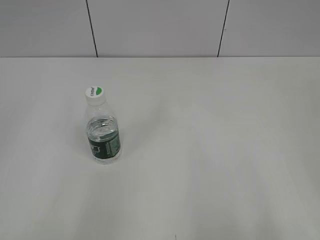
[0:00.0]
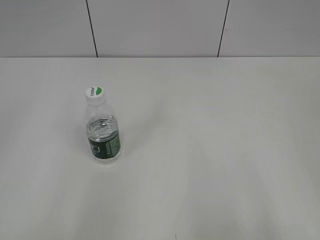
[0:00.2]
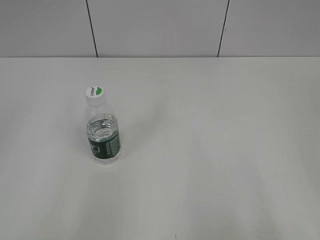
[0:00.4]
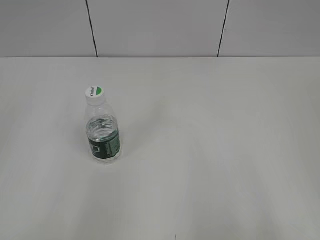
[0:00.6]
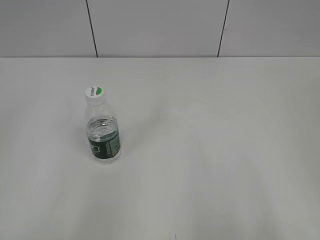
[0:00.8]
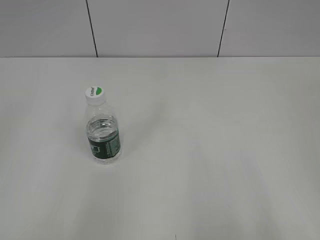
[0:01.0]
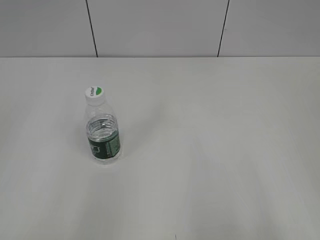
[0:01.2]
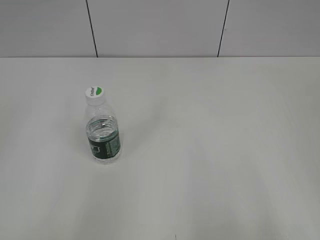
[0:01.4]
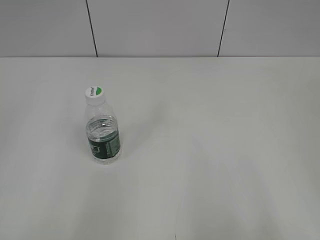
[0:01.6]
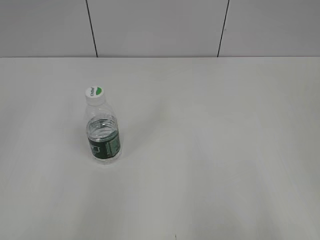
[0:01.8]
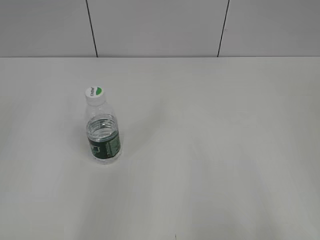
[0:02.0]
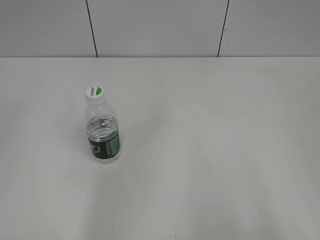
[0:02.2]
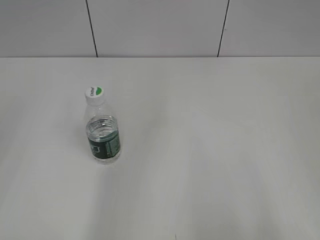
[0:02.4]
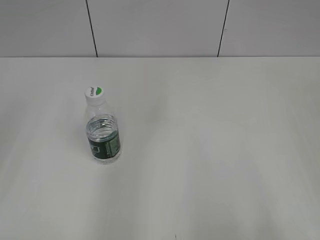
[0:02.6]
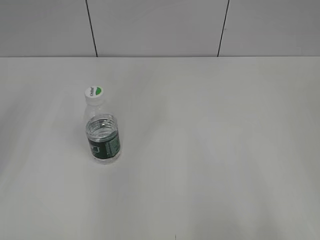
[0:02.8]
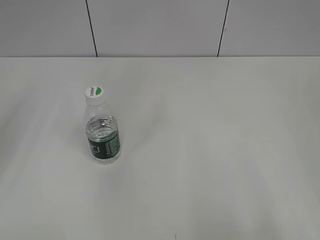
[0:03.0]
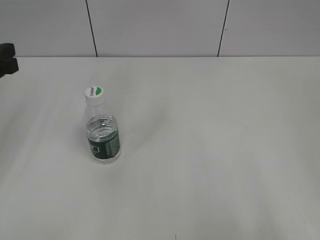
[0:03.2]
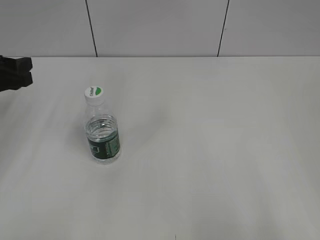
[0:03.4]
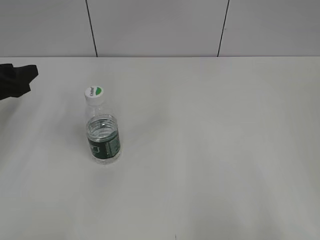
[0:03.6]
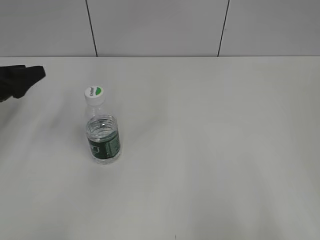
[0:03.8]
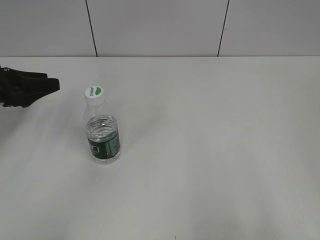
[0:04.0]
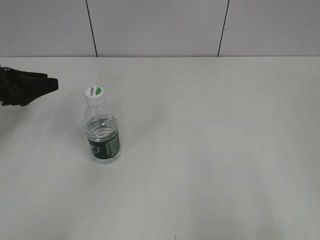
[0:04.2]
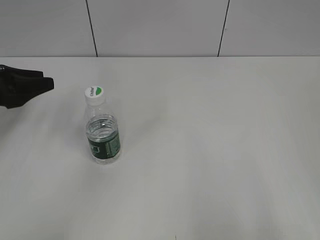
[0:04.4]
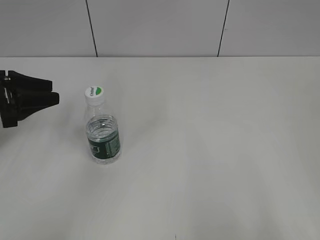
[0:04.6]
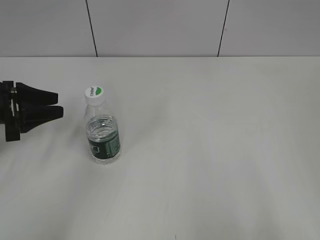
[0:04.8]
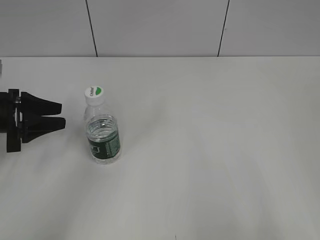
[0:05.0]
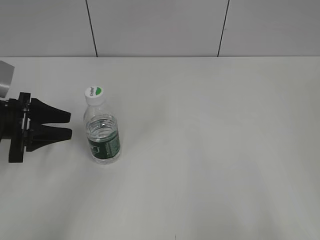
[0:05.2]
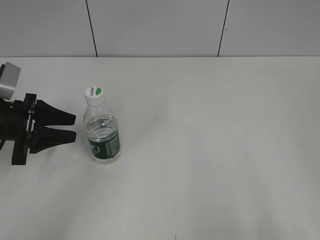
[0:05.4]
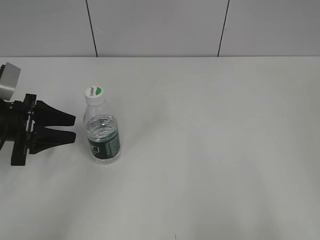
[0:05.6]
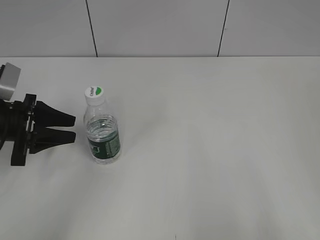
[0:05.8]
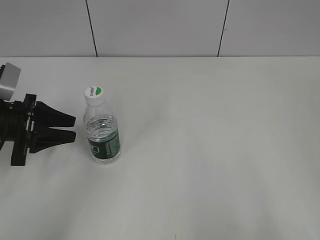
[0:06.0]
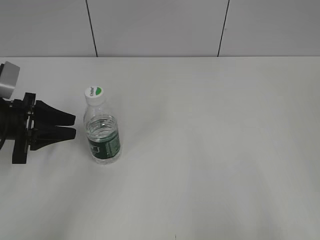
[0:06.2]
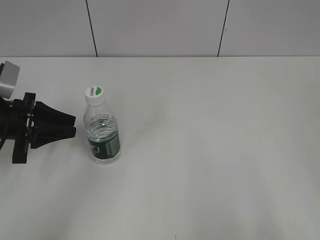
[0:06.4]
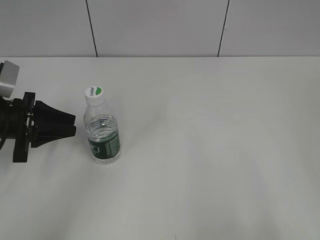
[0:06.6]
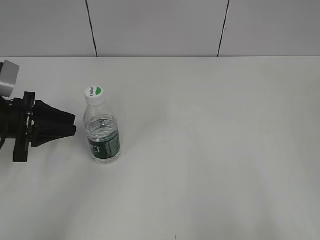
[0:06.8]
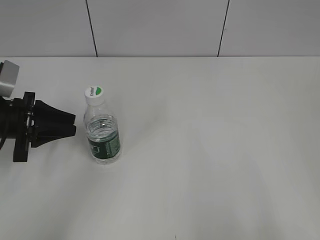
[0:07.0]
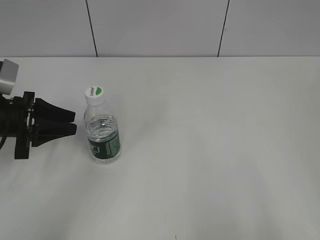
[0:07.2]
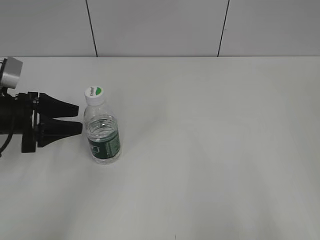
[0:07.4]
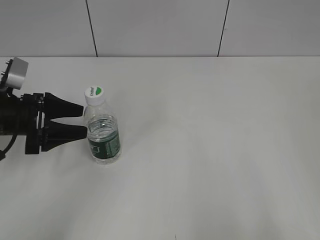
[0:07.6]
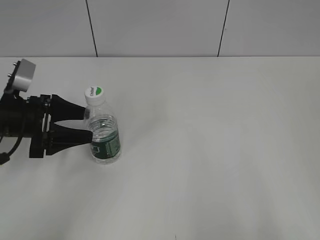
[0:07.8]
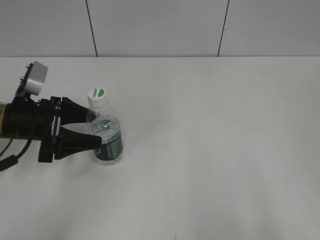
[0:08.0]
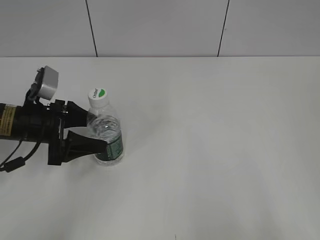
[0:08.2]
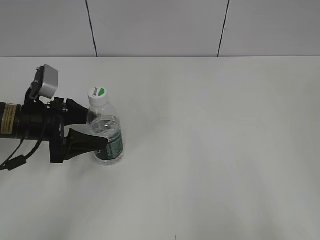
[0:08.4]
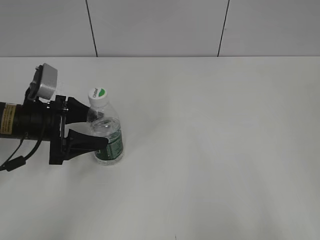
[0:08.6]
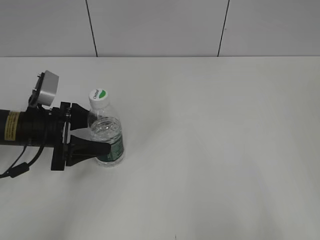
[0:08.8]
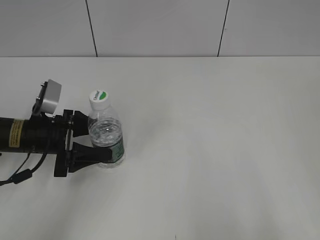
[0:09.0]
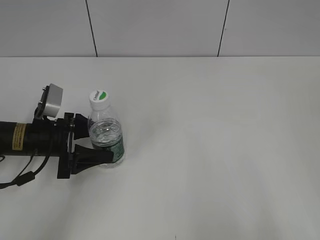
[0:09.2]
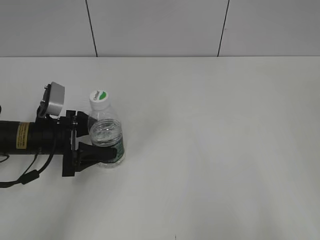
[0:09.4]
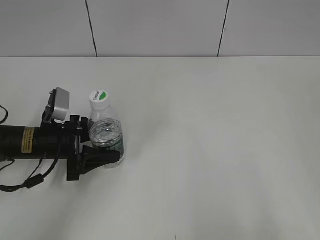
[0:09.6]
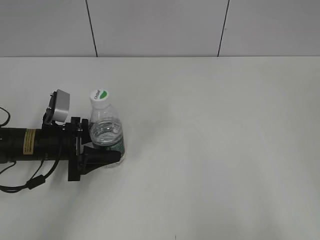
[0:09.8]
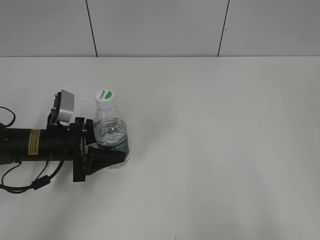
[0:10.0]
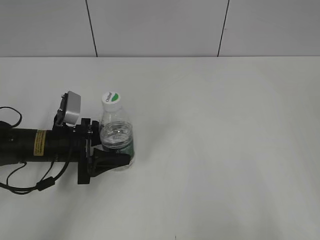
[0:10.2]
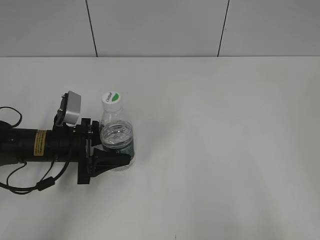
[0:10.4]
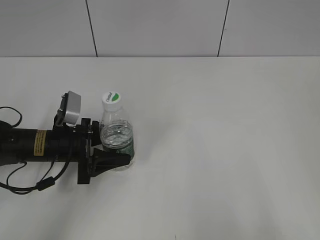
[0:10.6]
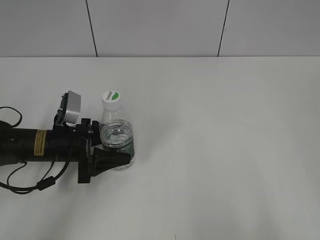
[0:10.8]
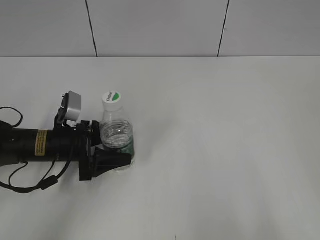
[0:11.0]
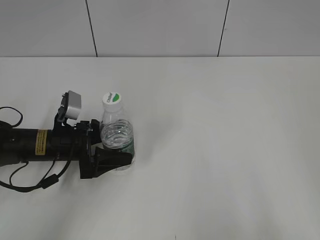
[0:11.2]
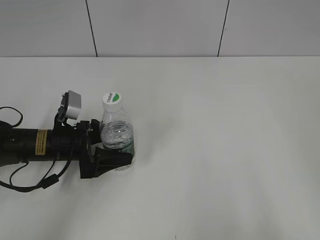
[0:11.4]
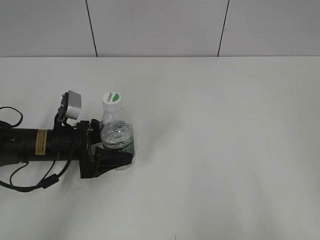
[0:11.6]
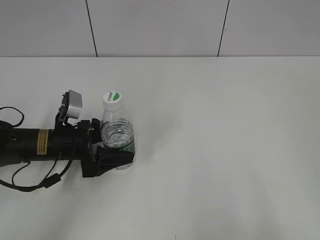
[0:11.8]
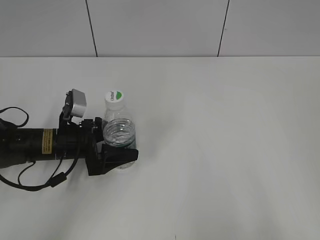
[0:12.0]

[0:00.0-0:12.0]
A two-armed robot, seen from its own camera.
Step, 0:00.0 to 0:11.0: Grasp the bottle and move it to the center of the table with the left gripper.
0:03.0 to 0:04.4: The left gripper is displaced downward and forward by approximately 15 cm.
0:04.4 to 0:06.0: The left gripper ends up some 5 cm from where it was.
0:06.0 to 0:07.6: The left gripper opens its fingers.
0:07.6 to 0:09.0: The left gripper changes place by approximately 5 cm.
0:09.0 to 0:10.4: The grippers move only a little.
0:10.4 to 0:12.0: The left gripper opens.

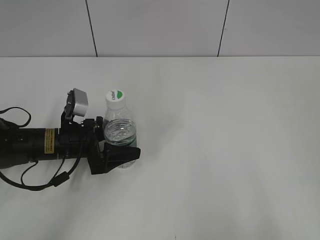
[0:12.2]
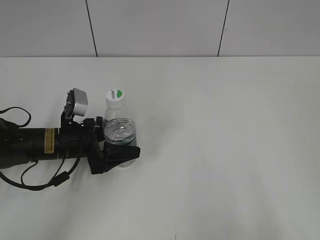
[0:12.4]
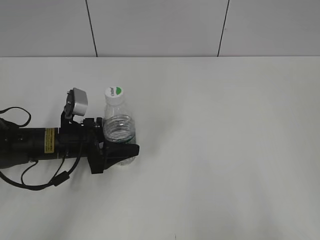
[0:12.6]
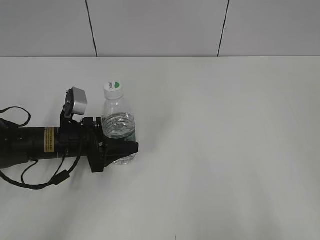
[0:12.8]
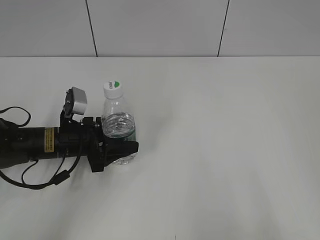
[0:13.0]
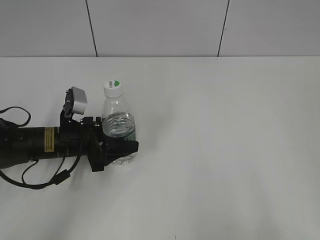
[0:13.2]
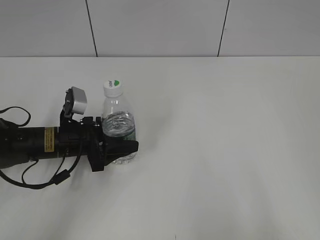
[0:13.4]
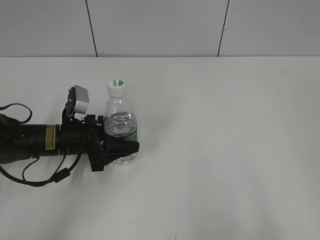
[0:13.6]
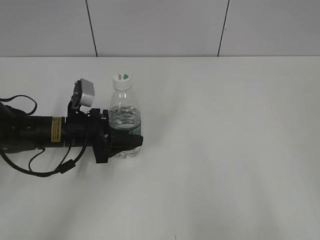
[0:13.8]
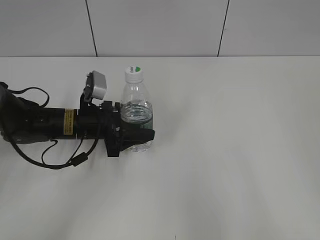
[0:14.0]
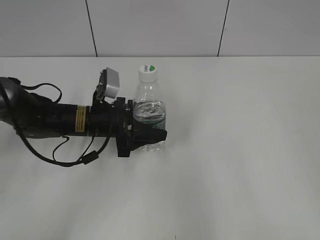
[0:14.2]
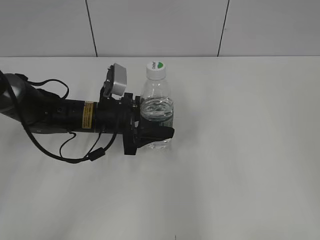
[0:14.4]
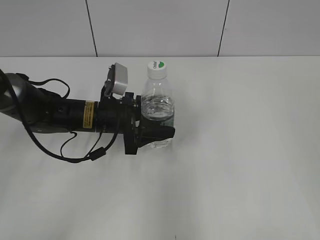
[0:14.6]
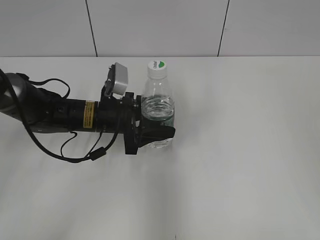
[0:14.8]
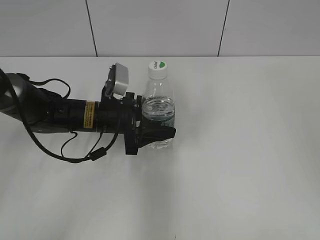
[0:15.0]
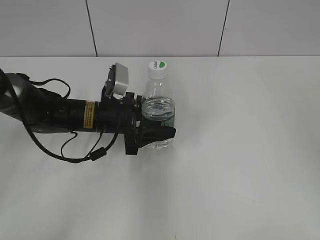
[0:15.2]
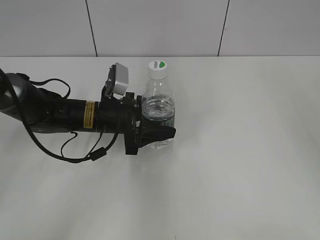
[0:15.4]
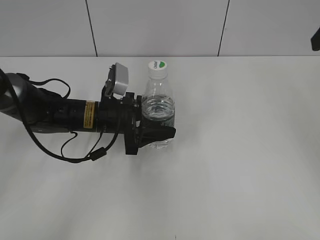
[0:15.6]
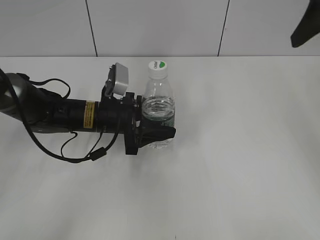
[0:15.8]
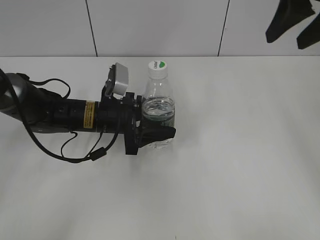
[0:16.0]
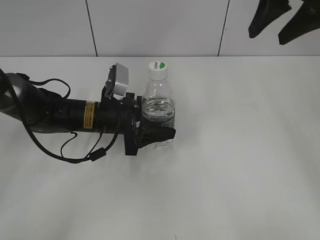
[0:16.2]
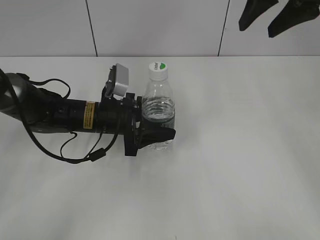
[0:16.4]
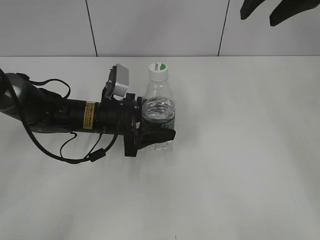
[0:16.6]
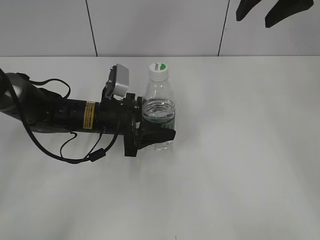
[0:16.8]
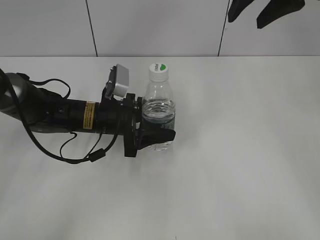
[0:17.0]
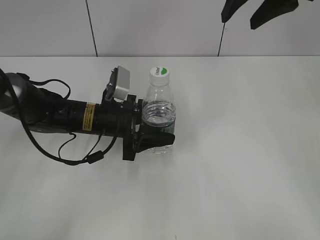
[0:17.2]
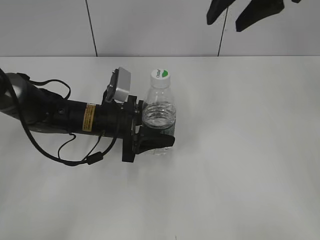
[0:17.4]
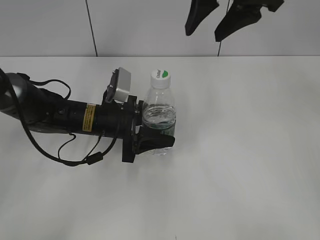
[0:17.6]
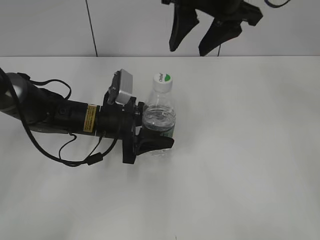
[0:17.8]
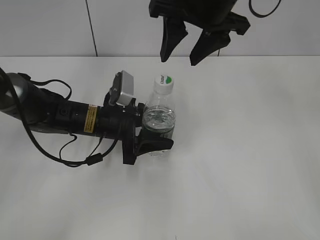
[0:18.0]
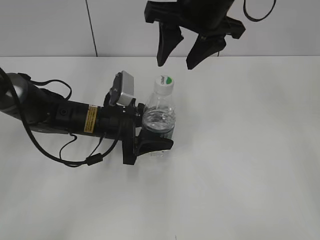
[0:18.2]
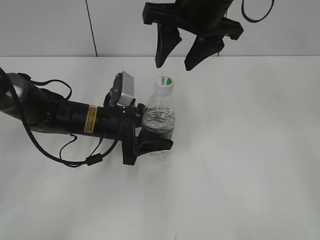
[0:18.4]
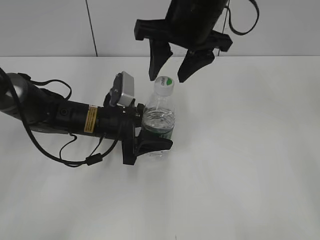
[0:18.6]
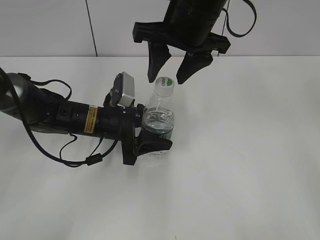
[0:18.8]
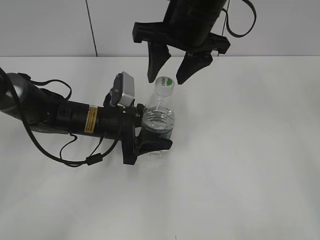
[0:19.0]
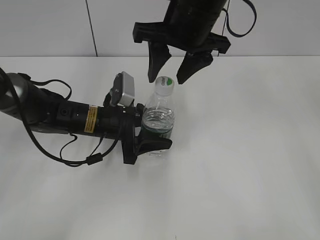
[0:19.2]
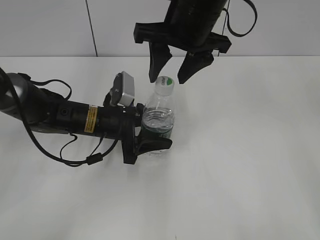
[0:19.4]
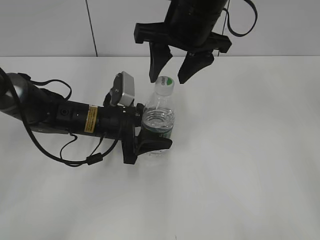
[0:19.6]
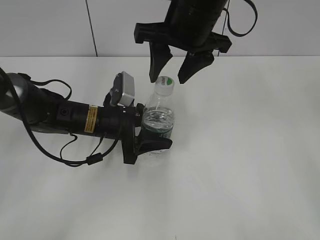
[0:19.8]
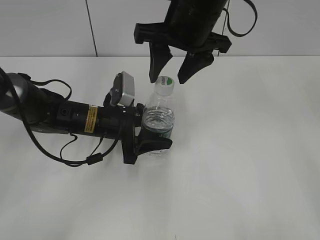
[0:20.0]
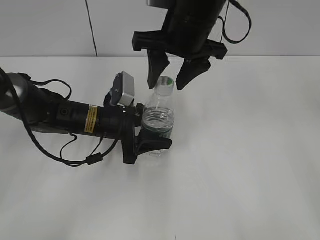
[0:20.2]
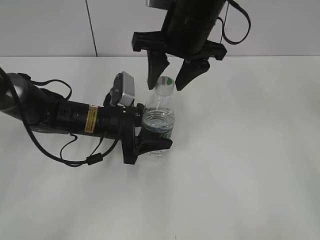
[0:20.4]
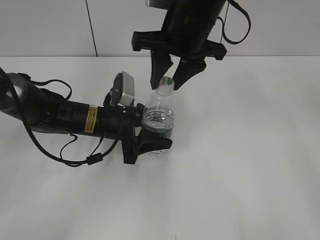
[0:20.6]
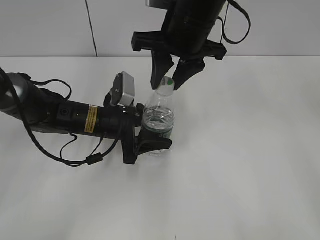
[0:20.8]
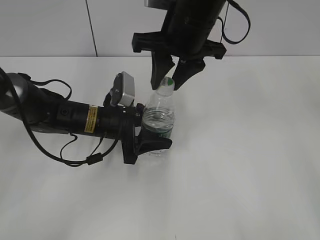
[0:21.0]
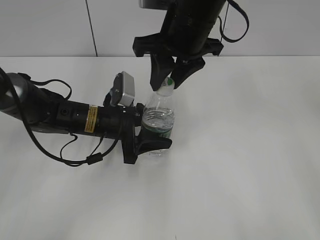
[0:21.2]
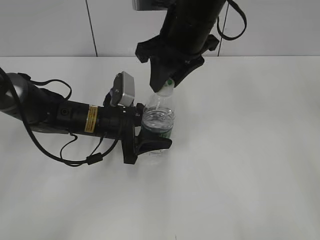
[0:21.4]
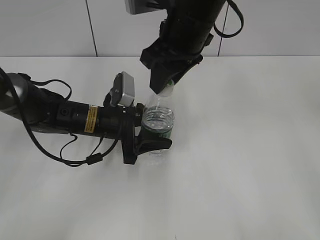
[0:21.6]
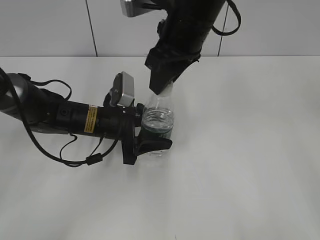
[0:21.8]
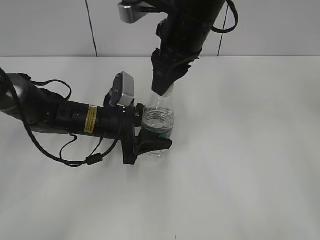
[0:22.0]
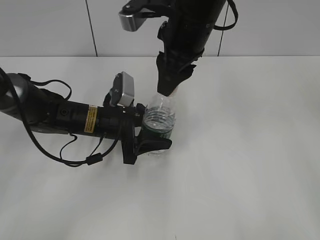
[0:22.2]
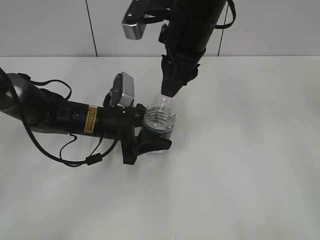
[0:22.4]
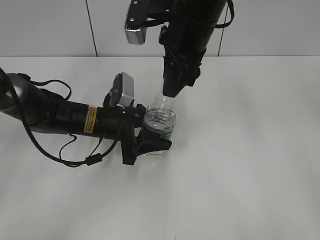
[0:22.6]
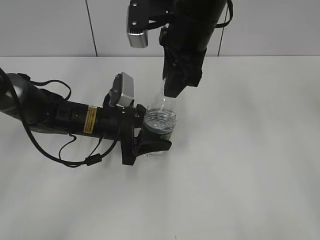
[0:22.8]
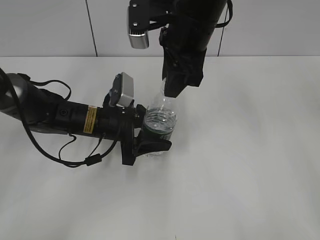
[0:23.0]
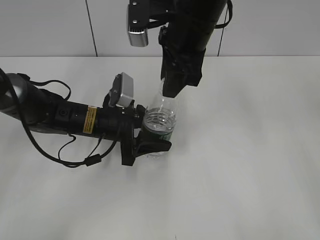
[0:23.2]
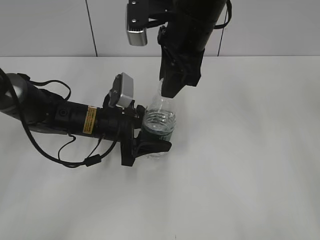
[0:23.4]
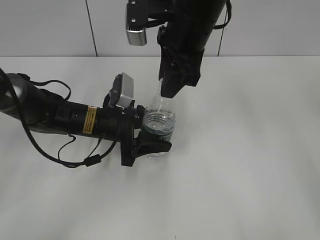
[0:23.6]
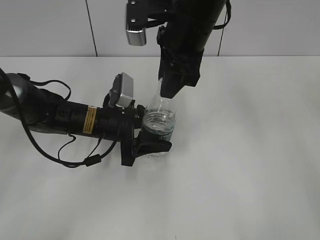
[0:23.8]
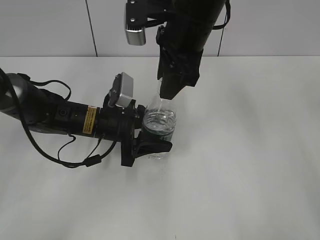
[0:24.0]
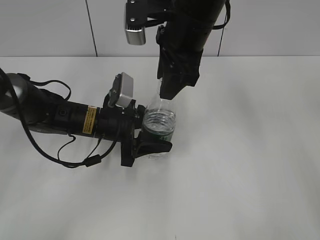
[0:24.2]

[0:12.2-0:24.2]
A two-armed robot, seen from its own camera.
Step, 0:12.2 to 0:17.8: Lift the bottle and move it to the center of the table with the left gripper.
0:12.2 to 0:13.8: The left gripper closes.
0:13.8 to 0:15.2: The left gripper shifts about 5 cm to the right. Meanwhile the right gripper shifts roughly 20 cm forward.
0:15.2 to 0:16.6: The right gripper moves forward and to the left, some 15 cm.
0:16.6 to 0:18.2: The right gripper moves to the left and downward, some 15 cm.
0:18.2 to 0:19.8: The grippers make only small movements.
0:19.8 to 0:21.2: The right gripper closes its fingers.
0:22.6 to 0:24.2: The right gripper opens.
